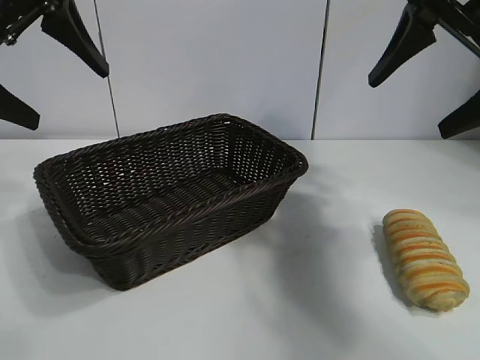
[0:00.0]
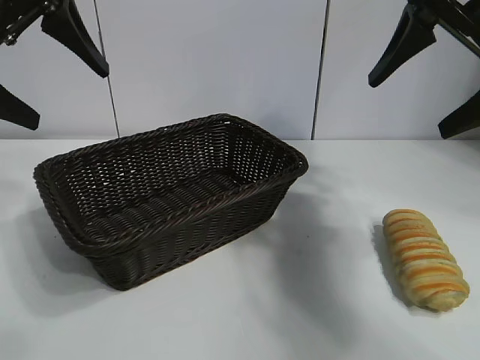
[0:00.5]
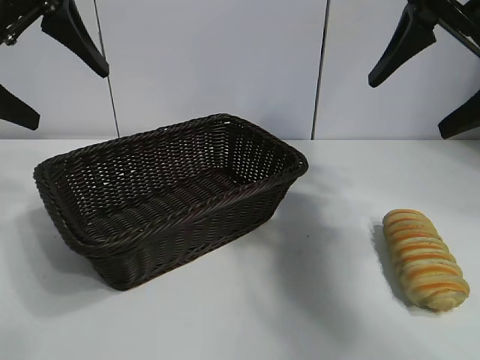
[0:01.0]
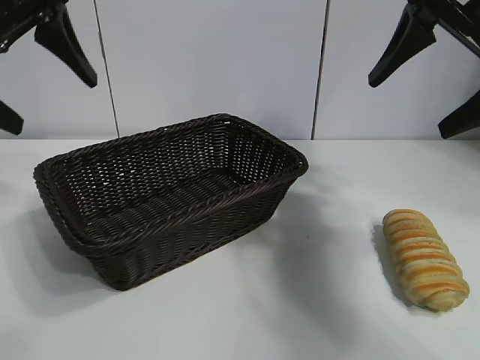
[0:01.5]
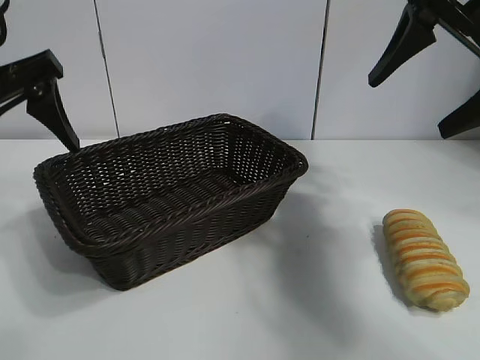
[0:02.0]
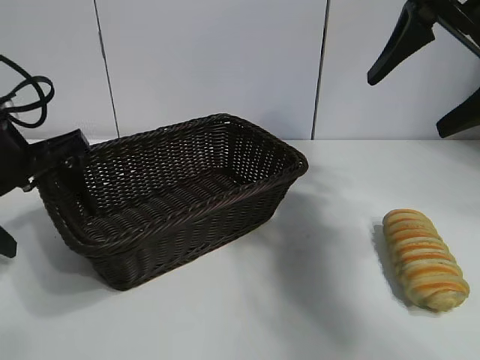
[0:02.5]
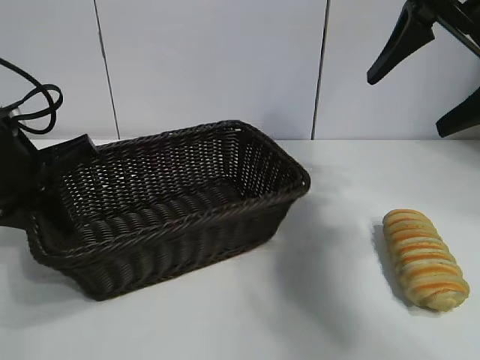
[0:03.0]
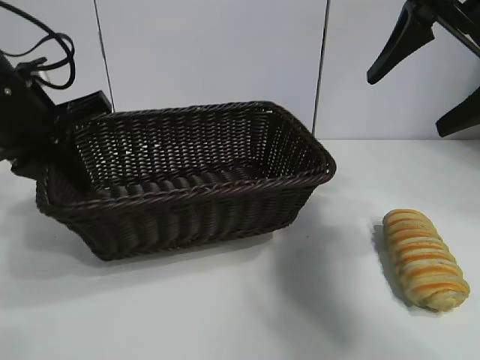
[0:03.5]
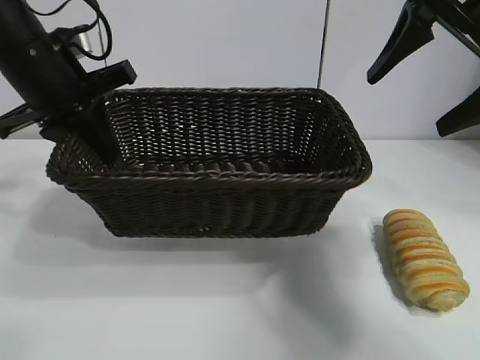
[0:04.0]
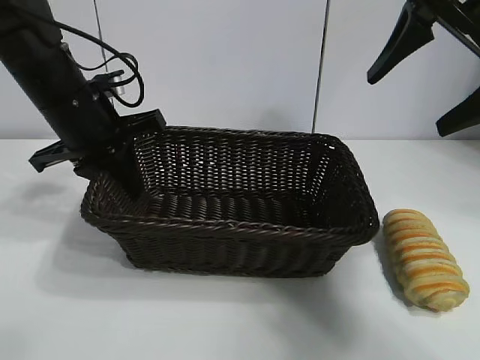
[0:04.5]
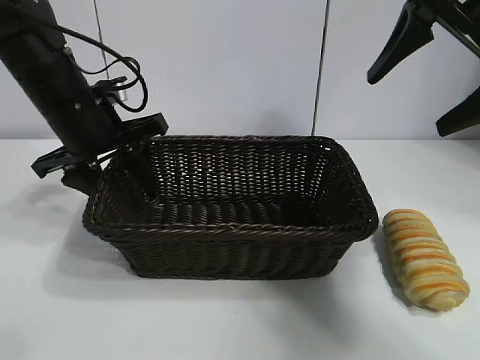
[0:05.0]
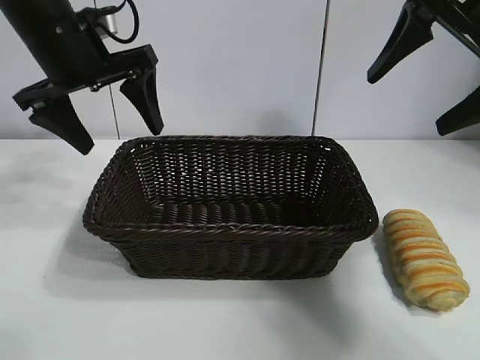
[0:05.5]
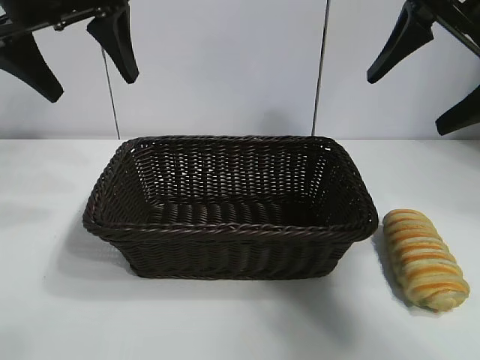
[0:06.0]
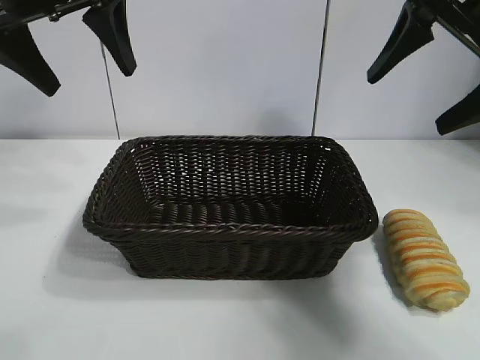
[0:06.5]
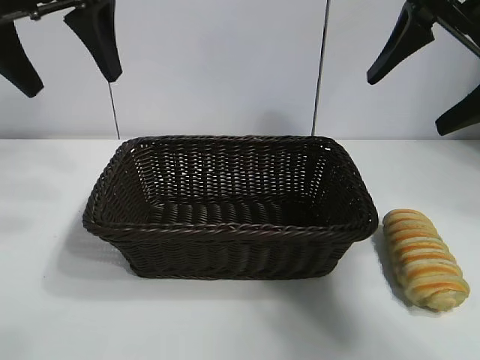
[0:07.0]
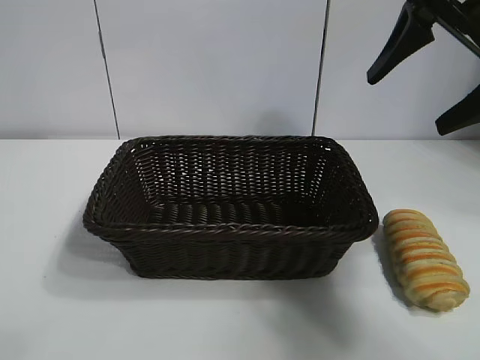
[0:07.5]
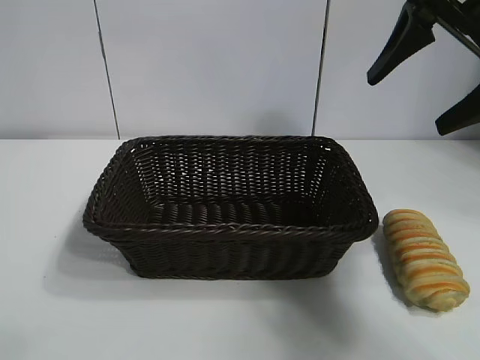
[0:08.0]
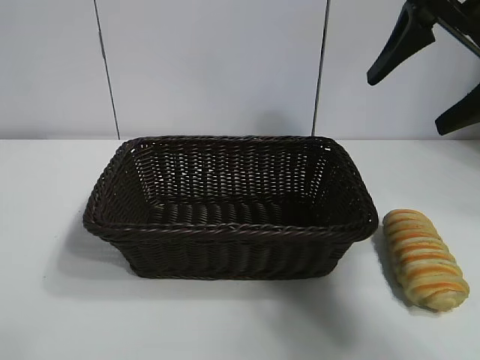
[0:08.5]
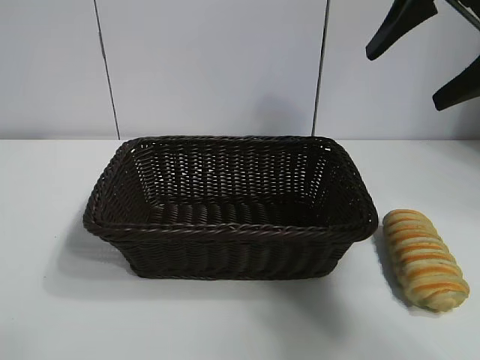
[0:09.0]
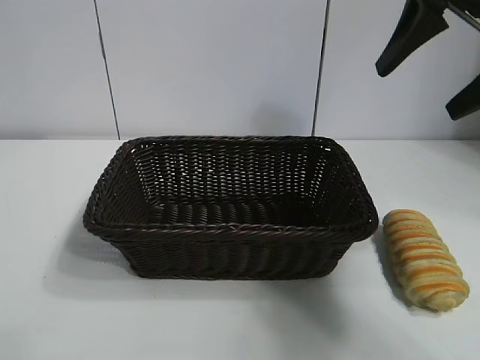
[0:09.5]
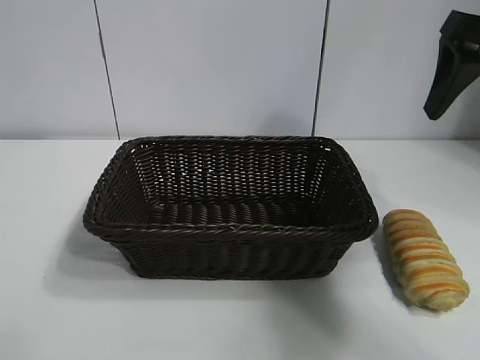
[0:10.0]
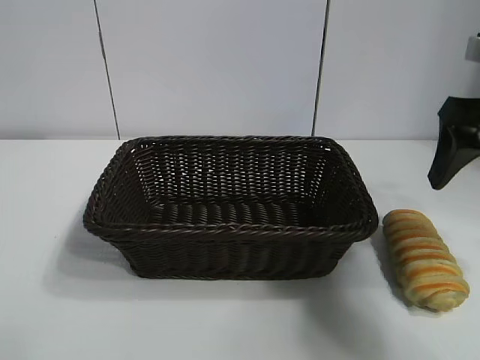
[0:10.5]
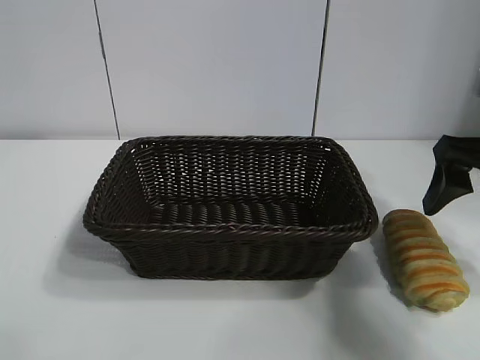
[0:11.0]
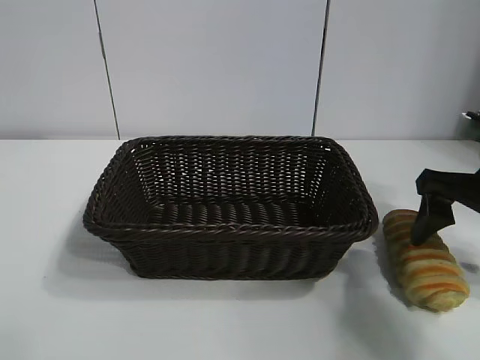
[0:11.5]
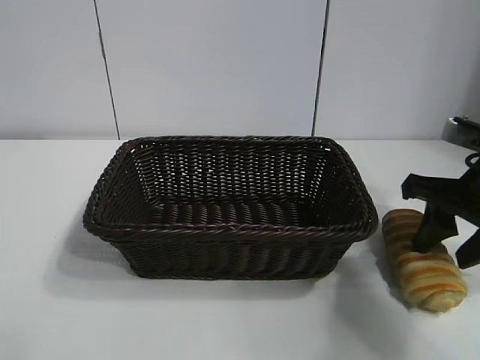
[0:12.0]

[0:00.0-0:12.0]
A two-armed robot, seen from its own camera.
Task of the whole recording: pick up the long bread and put it into the basket.
Step, 0:01.5 to 0:03.0: Grasp the basket with the left gripper.
Step, 0:03.5 to 0:05.0: Place the basket in the center of the table with the left gripper.

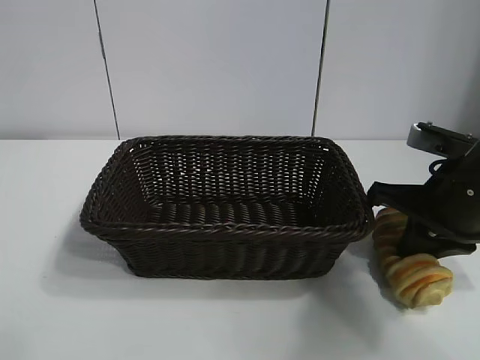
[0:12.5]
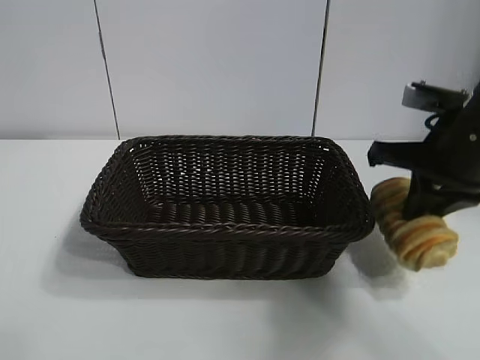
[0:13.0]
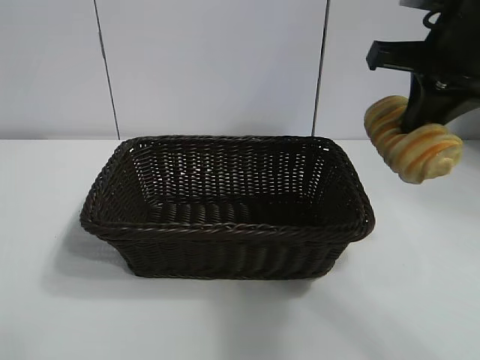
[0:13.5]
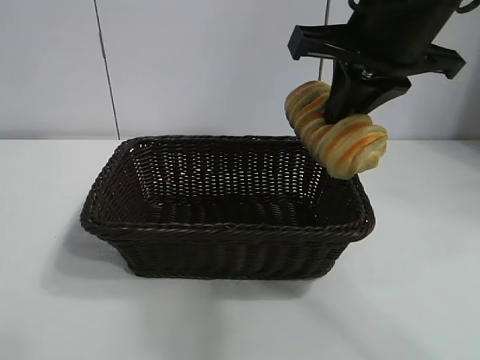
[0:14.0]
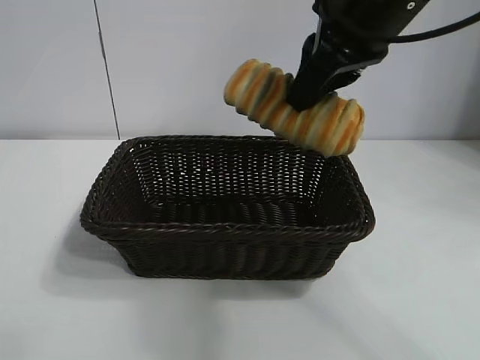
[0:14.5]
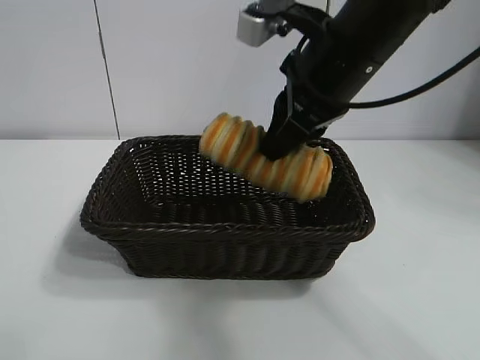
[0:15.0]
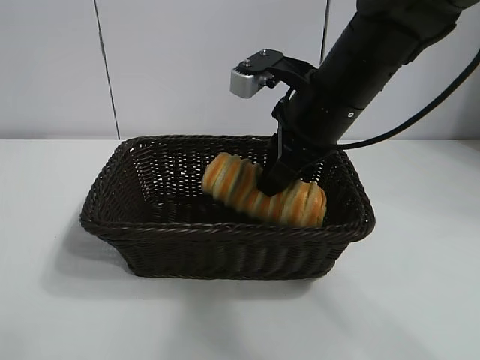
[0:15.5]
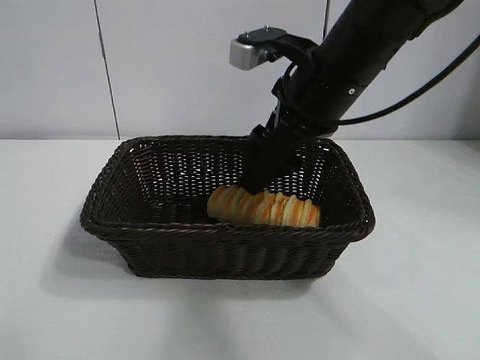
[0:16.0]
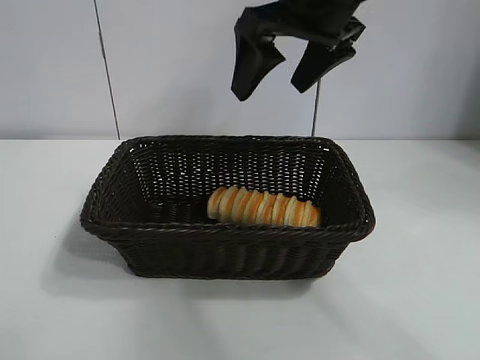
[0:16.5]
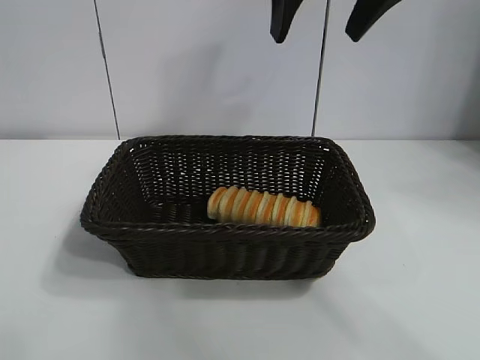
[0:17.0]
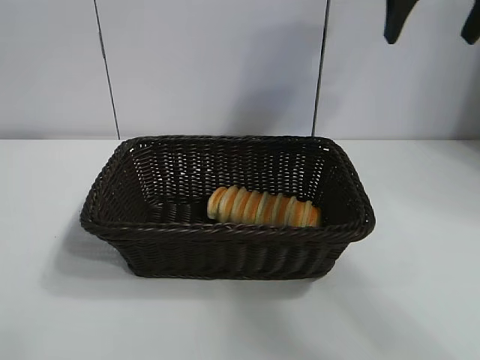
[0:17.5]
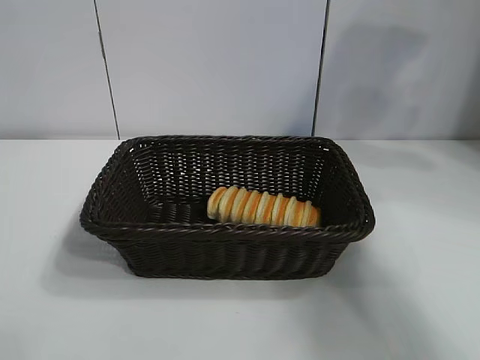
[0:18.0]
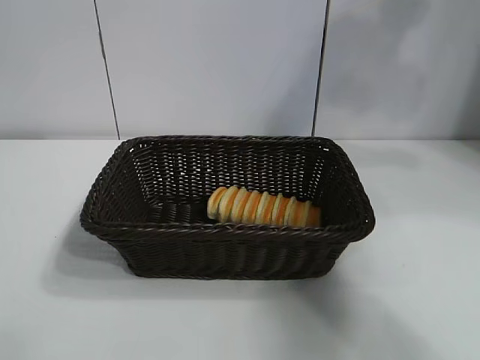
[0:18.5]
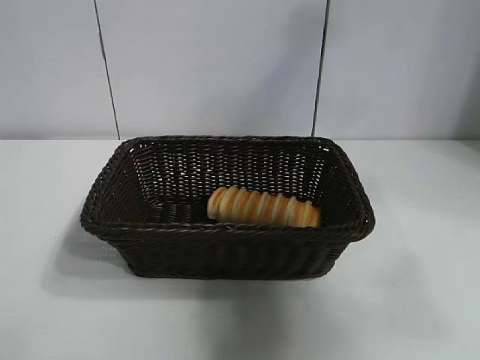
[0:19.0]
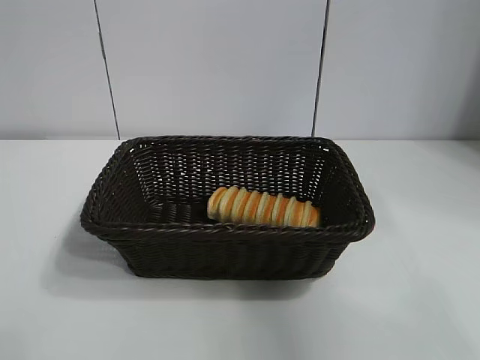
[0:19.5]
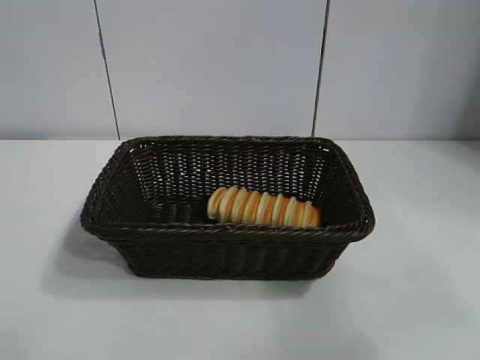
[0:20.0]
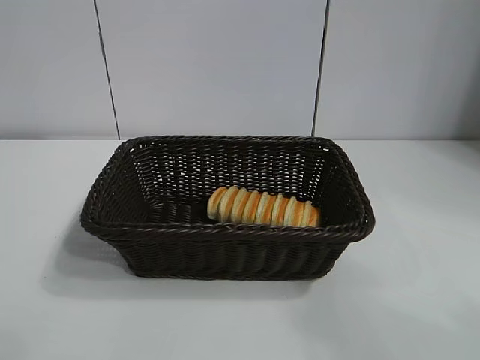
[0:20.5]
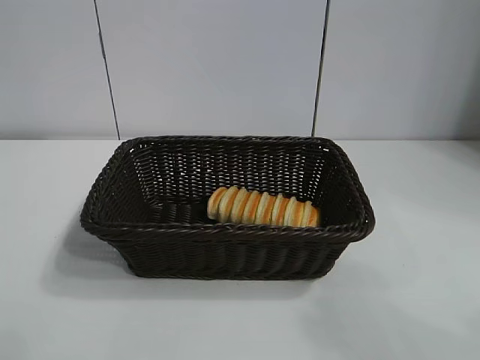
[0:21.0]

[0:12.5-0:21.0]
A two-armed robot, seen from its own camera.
Task of the whole recording: pick up the long bread and put it into the basket.
Step, 0:13.0 to 0:16.0: Place the long bread in the basket with right gripper.

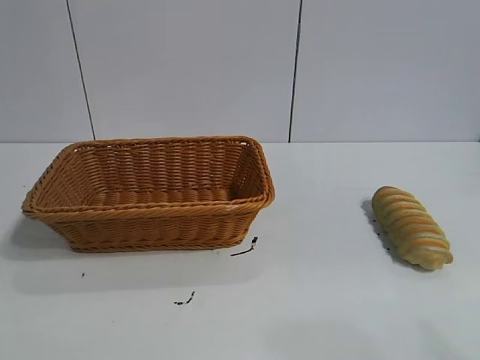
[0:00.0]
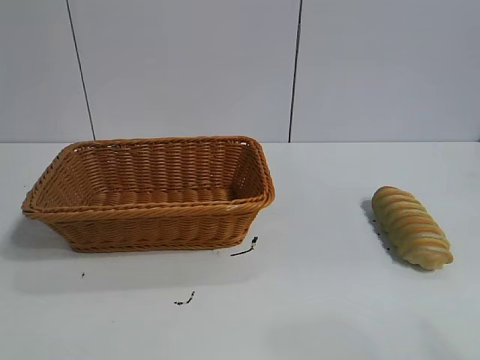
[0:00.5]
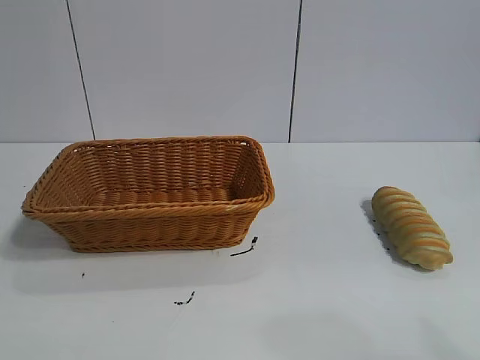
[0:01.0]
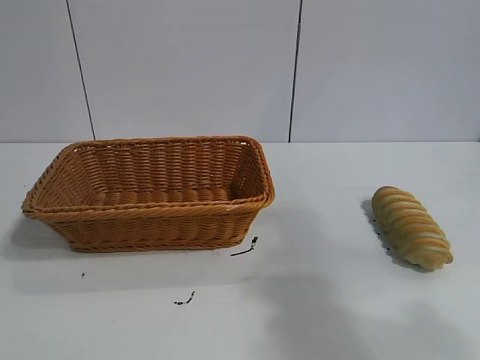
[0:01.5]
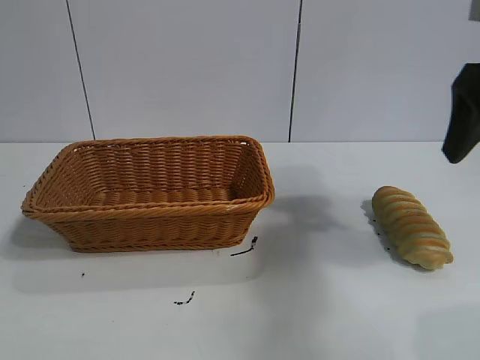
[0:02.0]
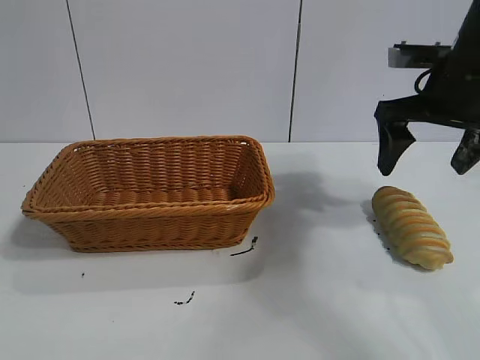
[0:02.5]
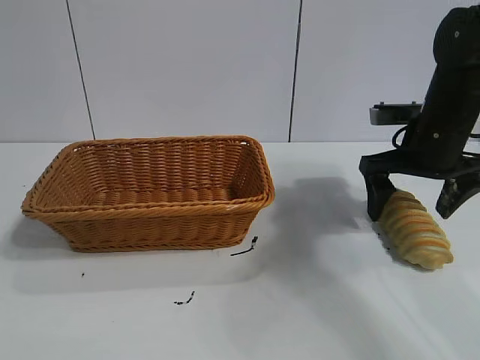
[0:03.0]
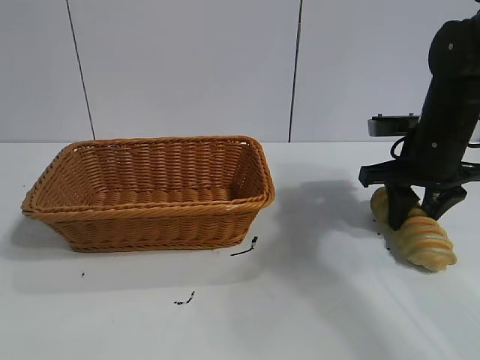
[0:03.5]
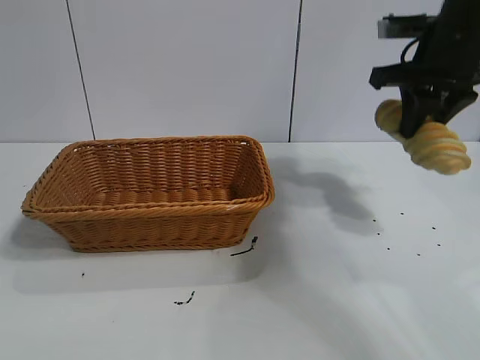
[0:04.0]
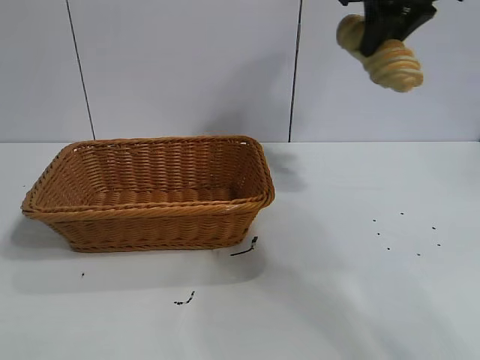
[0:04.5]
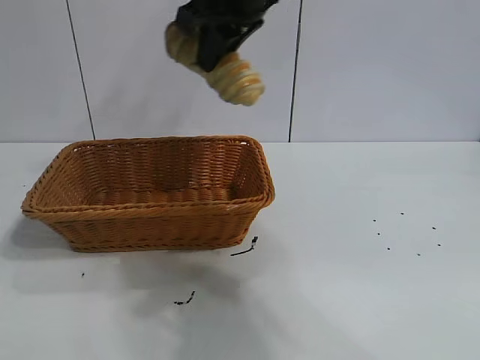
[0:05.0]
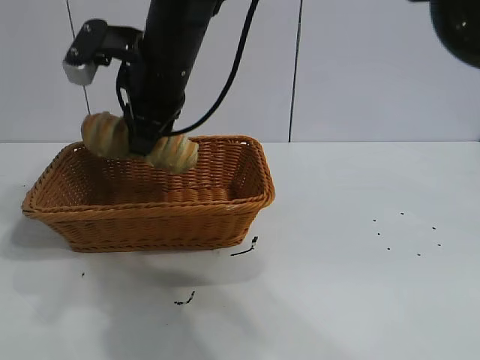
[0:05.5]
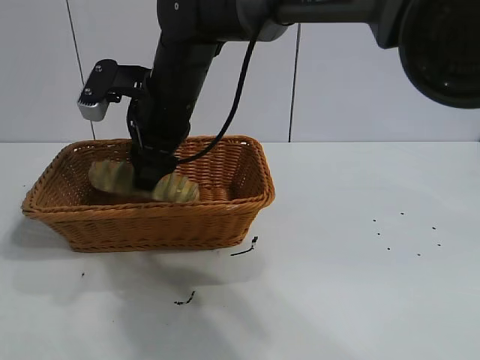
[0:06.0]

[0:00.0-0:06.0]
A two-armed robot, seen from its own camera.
Task of the whole recording: pick up the long bread and put it into the basket.
Step, 0:02.0 to 0:03.5: Grasp the long bread with right gripper.
